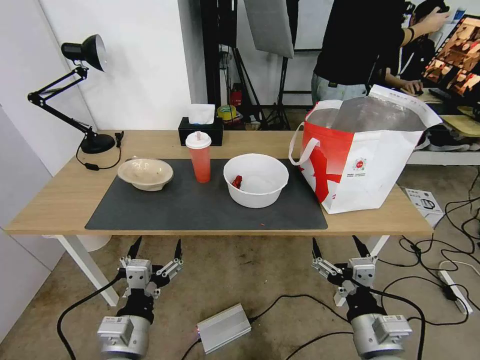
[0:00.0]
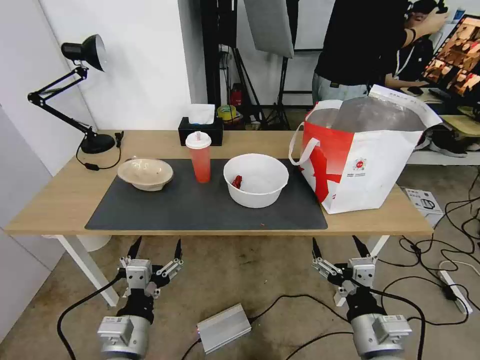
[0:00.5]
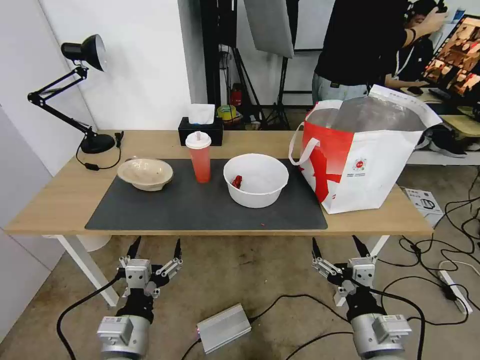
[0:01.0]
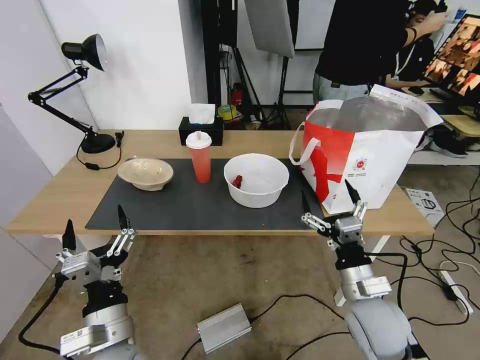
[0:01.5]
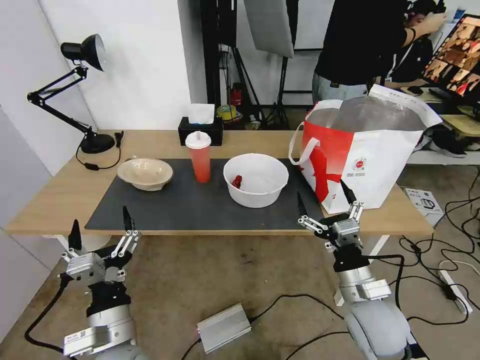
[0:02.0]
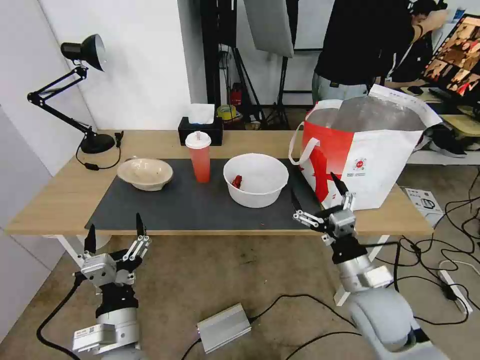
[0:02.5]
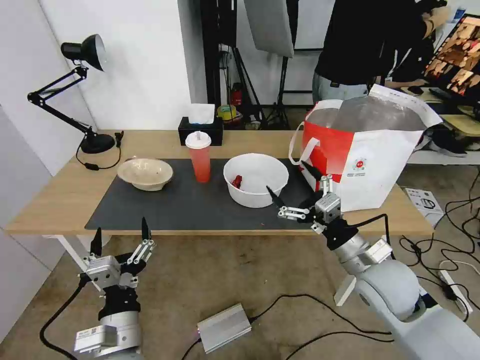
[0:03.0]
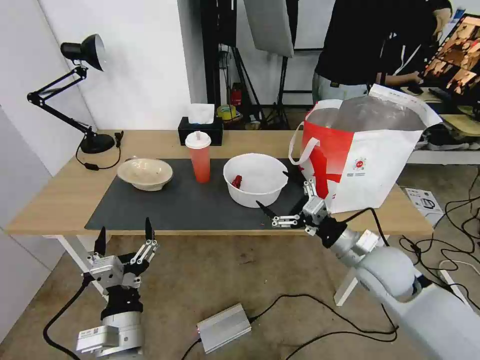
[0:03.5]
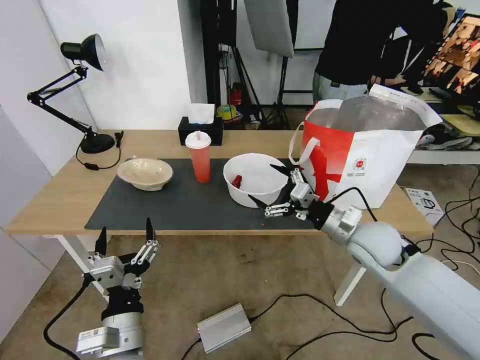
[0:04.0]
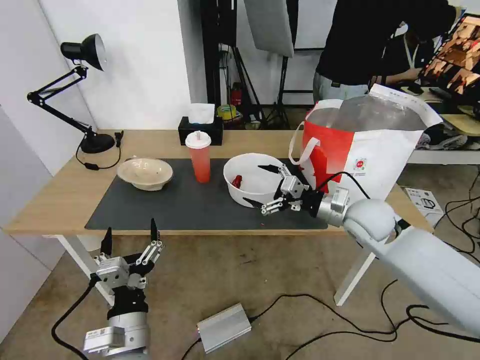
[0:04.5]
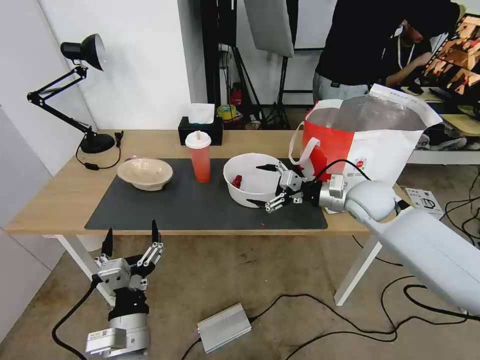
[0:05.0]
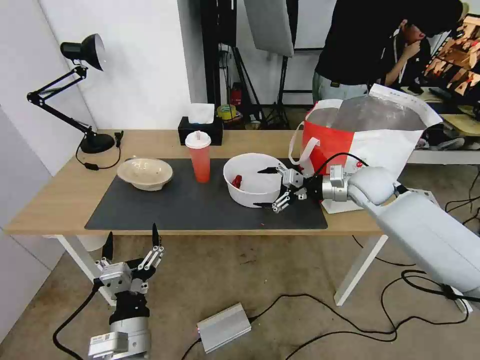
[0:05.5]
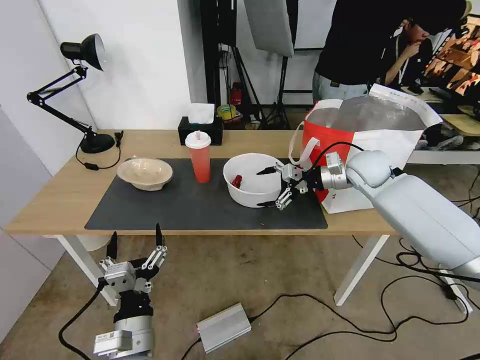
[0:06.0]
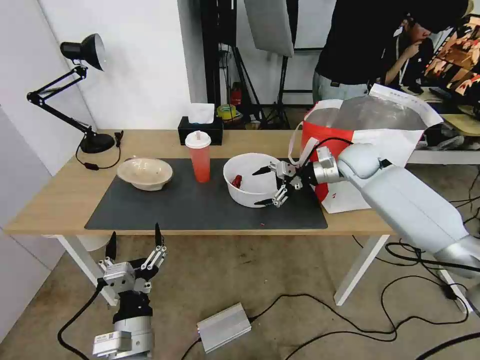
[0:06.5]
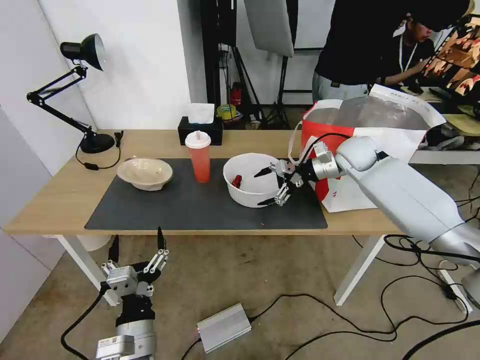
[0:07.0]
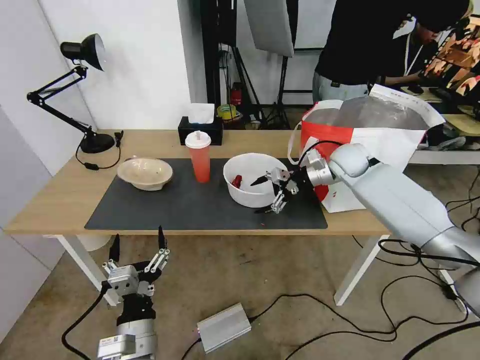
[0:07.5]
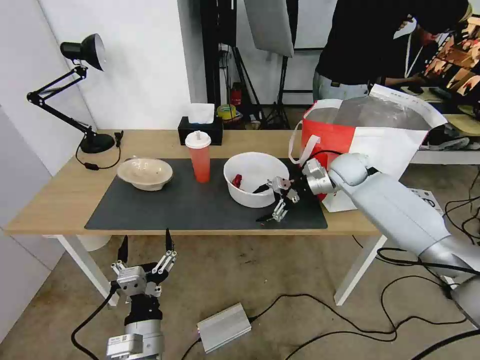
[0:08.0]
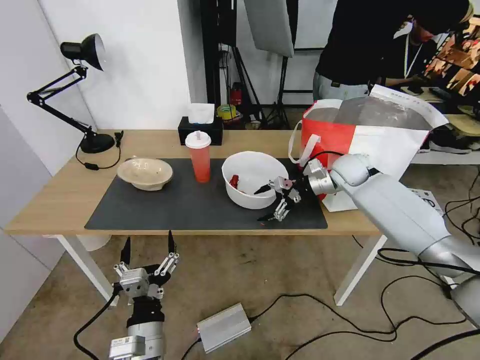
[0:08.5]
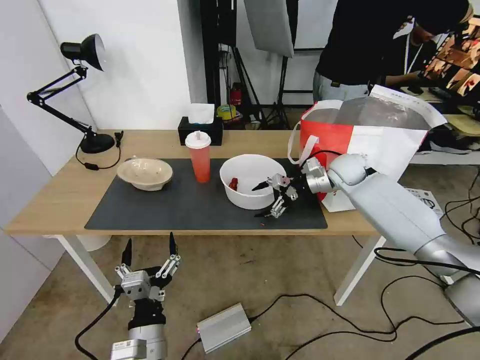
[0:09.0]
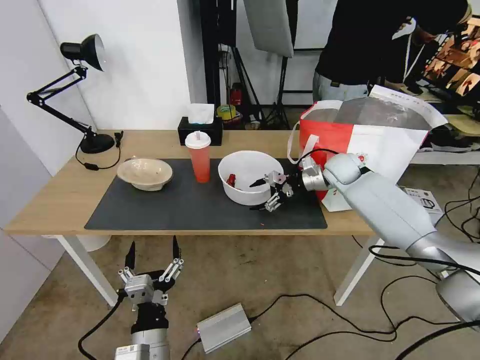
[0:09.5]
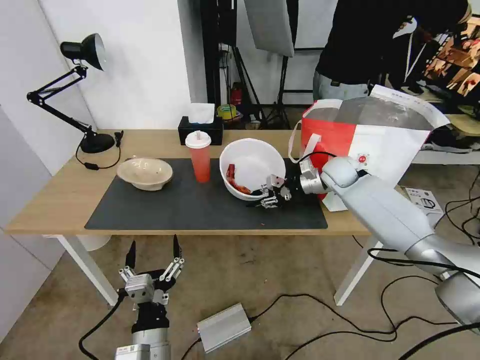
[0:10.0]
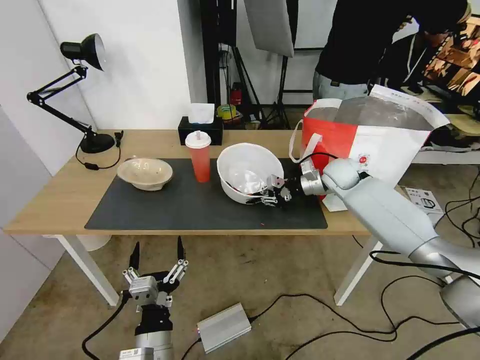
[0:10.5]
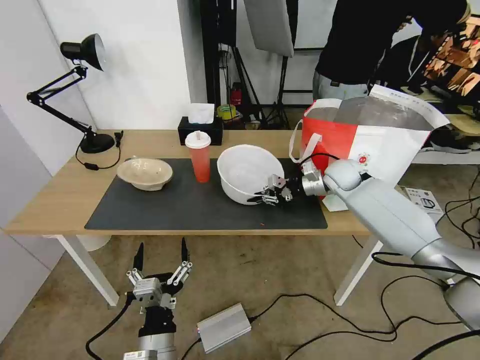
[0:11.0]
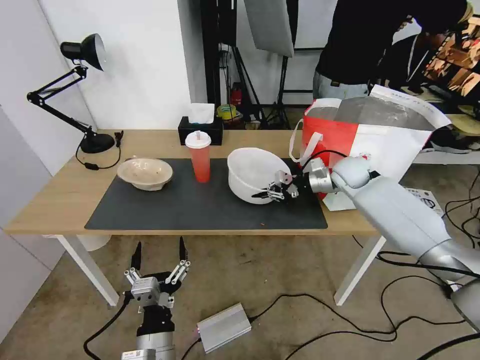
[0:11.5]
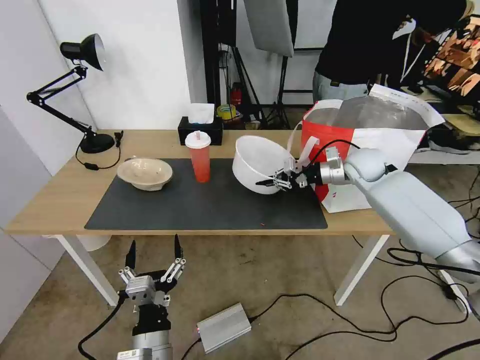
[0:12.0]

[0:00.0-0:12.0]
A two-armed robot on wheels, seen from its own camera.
Task of the whole recording: Pick up the trash from the table and place it into the takeout bag.
0:02.0 to 0:04.0: The right gripper travels forward and upward by roughly 15 cm.
0:04.0 to 0:06.0: The right gripper travels forward and upward by some 20 cm.
0:06.0 to 0:08.0: The right gripper shifts by some 5 cm.
0:08.0 to 0:10.0: The right gripper closes.
0:10.0 to 0:12.0: The right gripper changes place by approximately 5 cm.

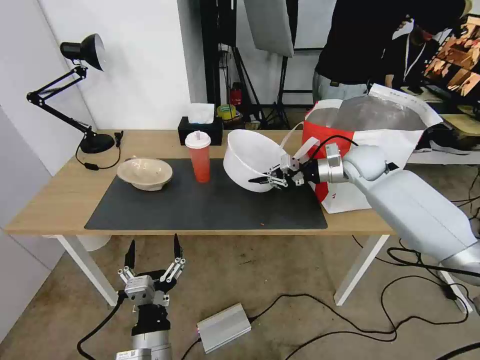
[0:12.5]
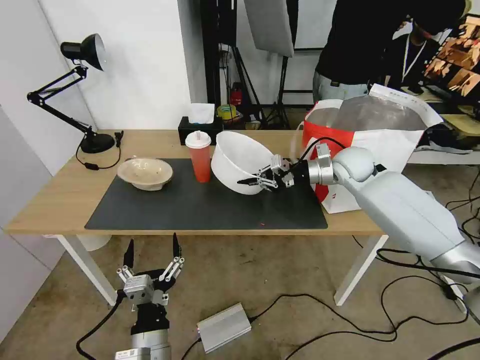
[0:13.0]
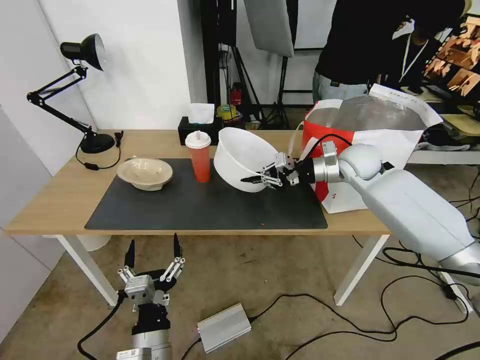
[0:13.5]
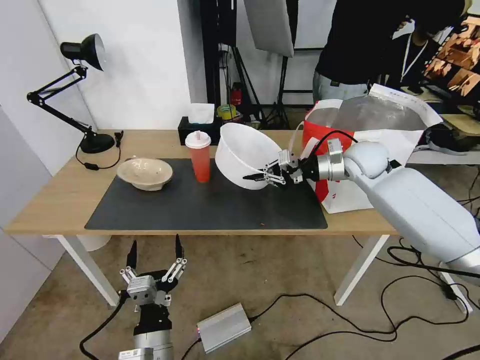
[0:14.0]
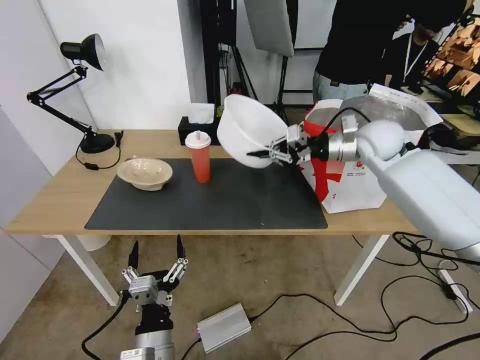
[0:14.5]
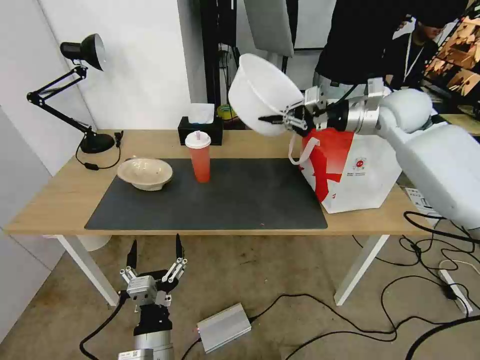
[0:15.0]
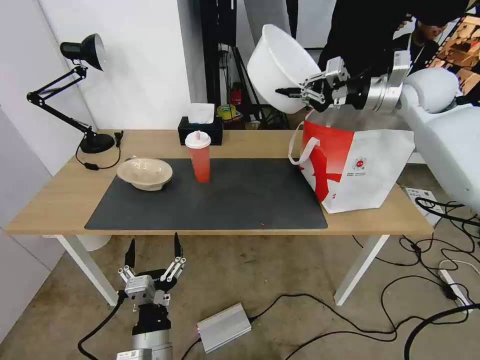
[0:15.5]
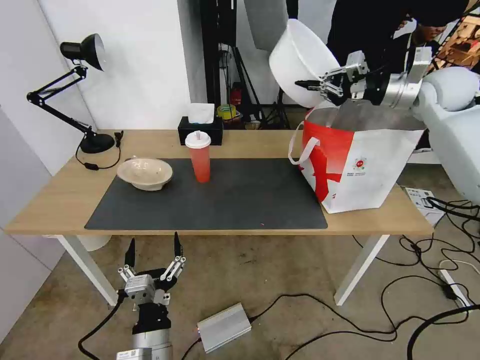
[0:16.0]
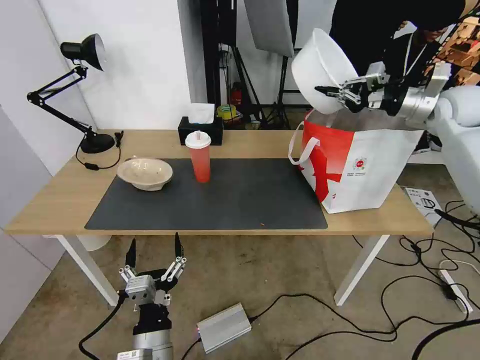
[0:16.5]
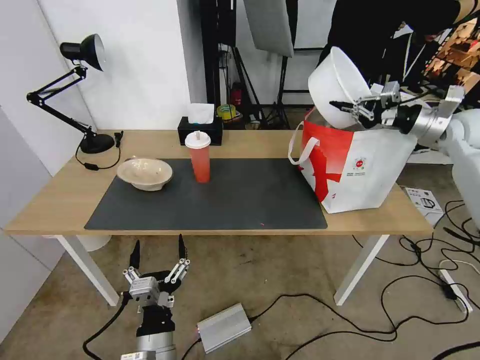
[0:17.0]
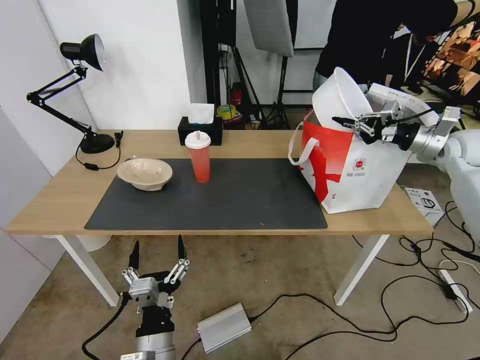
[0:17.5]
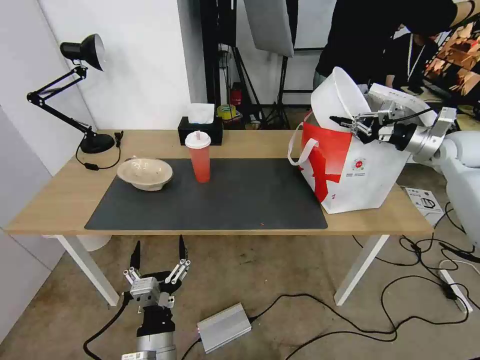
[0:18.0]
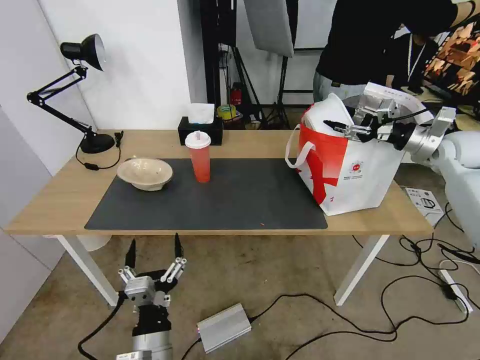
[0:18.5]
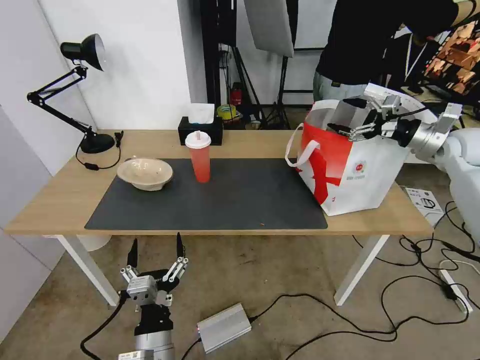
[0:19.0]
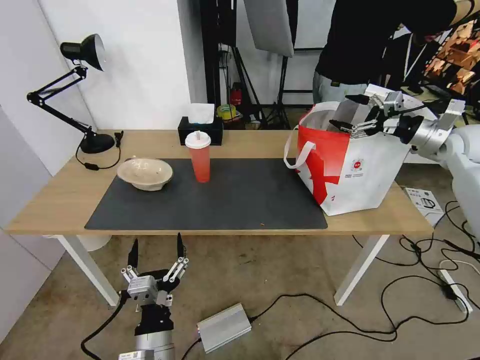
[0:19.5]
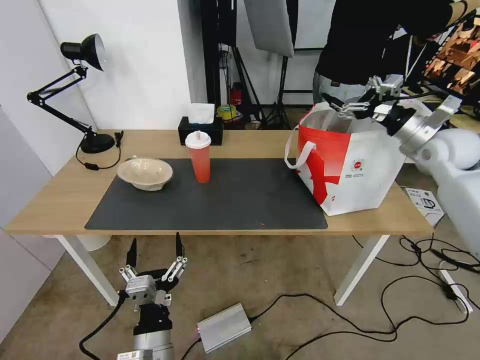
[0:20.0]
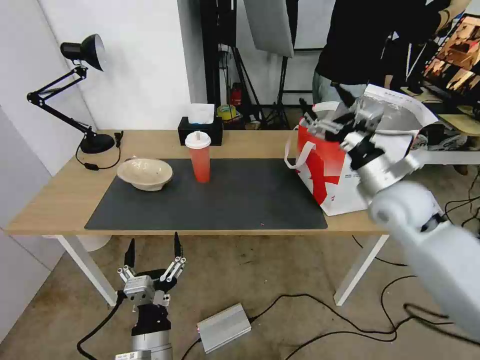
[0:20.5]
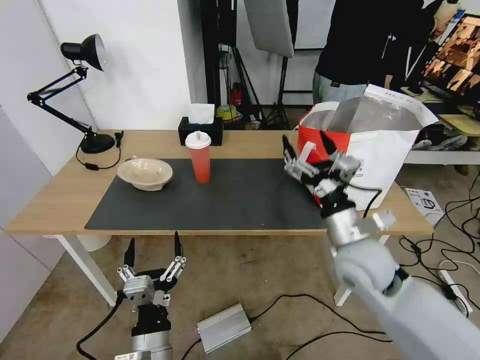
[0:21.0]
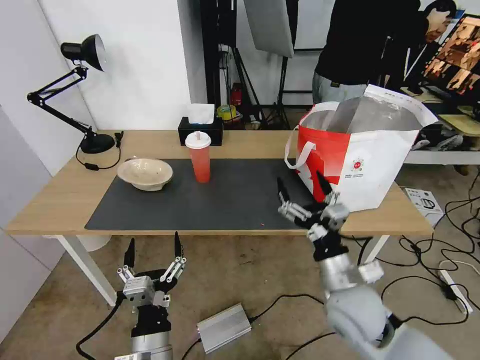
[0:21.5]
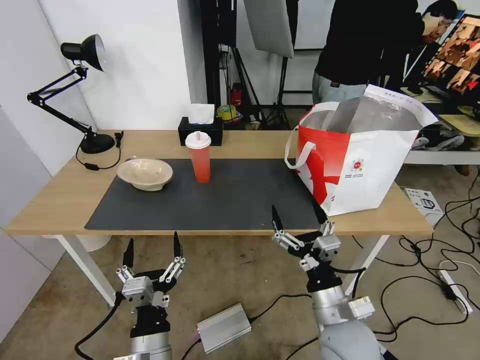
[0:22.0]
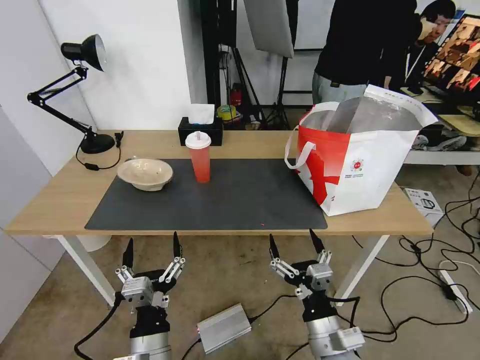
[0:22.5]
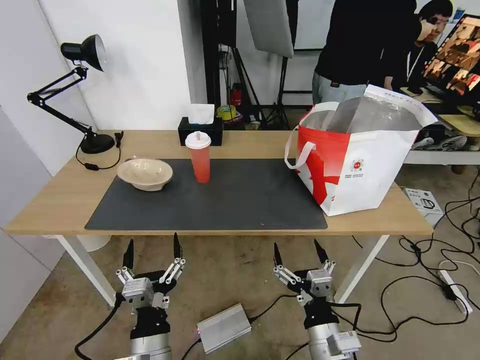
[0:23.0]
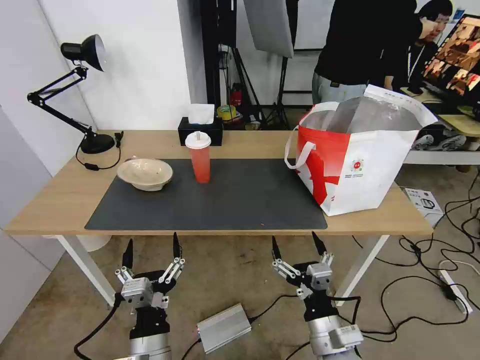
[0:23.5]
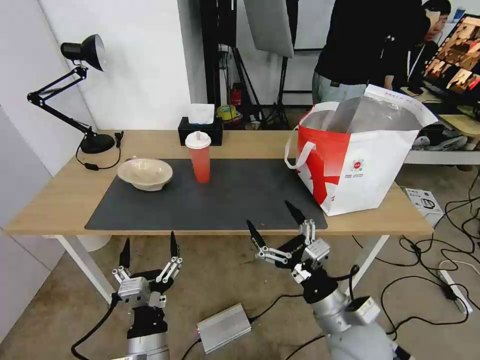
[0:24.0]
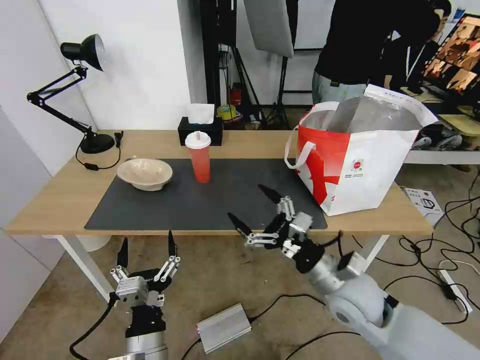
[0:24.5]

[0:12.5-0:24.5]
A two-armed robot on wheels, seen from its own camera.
Task of the whole recording: Pick up the trash from the table and place it into the takeout bag.
0:12.5 to 0:14.5: The right gripper heads upward, covering about 5 cm.
0:14.5 to 0:16.5: The right gripper shifts some 15 cm to the right and upward.
0:16.5 to 0:18.5: The right gripper shifts some 10 cm downward, and opens up.
0:18.5 to 0:20.5: The right gripper is displaced to the left and backward by some 20 cm, and opens.
0:20.5 to 0:22.5: The right gripper heads backward, downward and to the left, covering about 35 cm.
0:22.5 to 0:24.5: The right gripper shifts about 15 cm forward and upward.

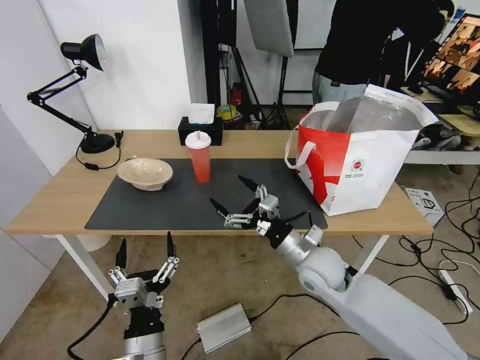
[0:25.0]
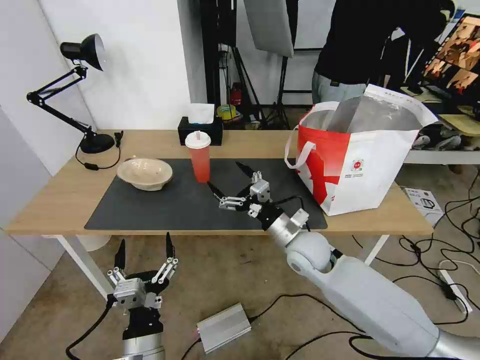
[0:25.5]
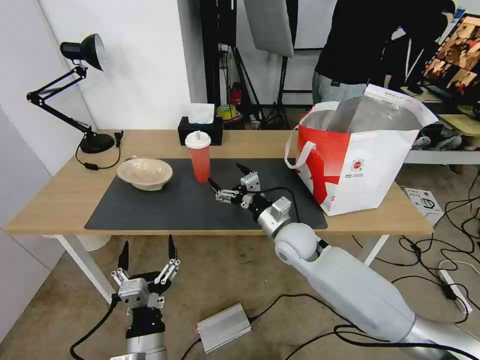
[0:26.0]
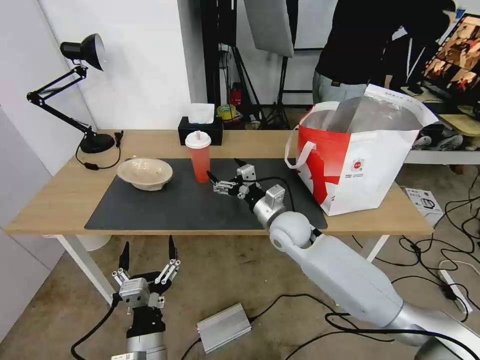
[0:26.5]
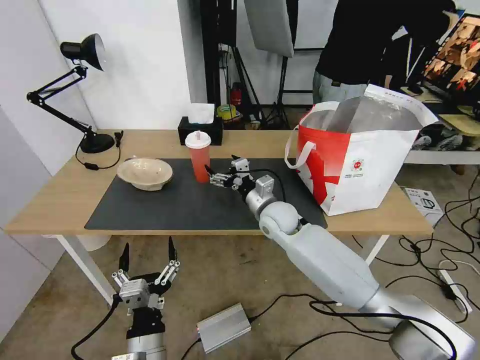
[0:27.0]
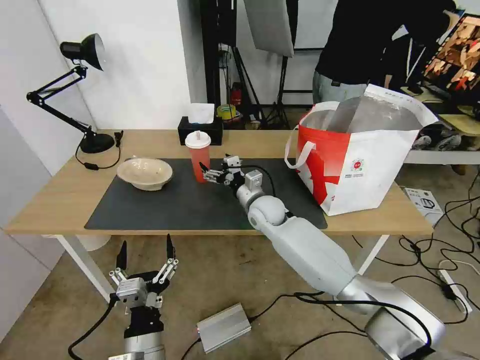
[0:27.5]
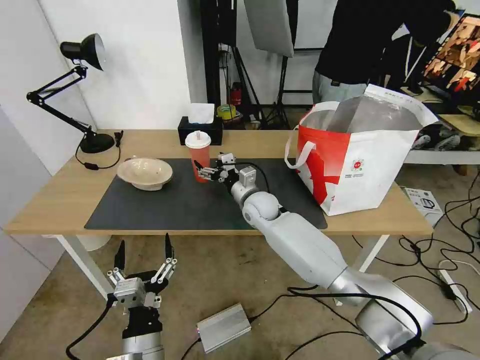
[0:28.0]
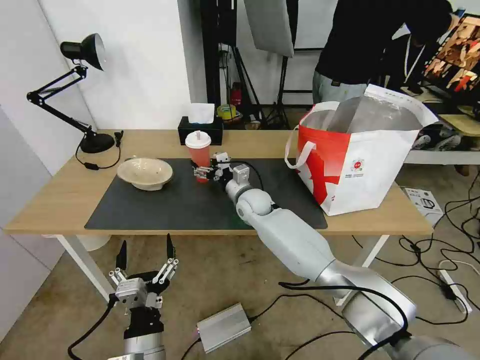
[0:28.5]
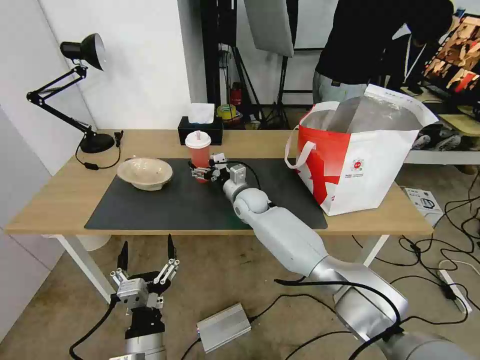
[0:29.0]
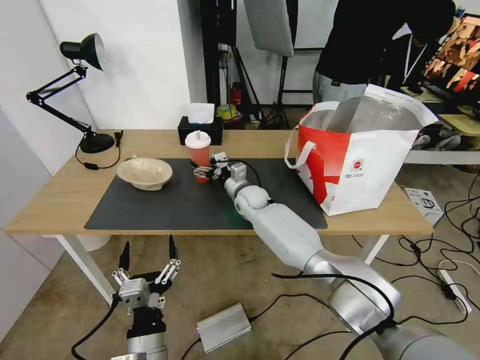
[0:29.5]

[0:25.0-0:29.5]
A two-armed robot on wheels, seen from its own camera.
Task of the whole recording: Pick up the trash from the table and place it into the takeout bag.
0:25.0 to 0:27.0: The right gripper travels forward and to the left by about 15 cm.
0:27.0 to 0:29.5: The right gripper goes some 10 cm forward and to the left.
